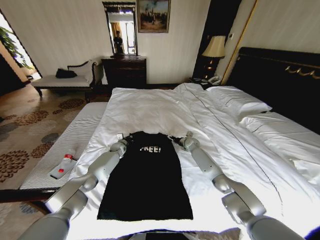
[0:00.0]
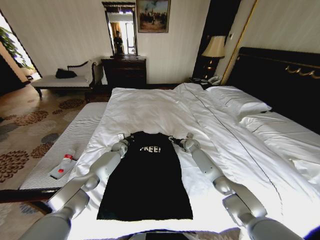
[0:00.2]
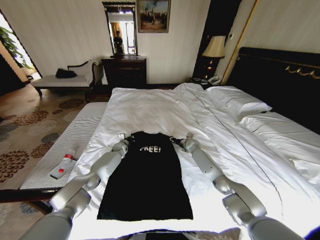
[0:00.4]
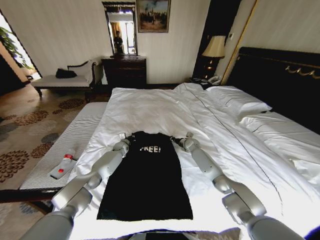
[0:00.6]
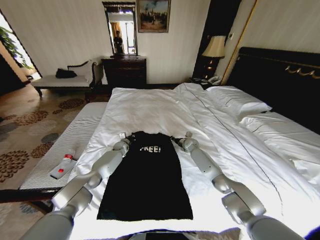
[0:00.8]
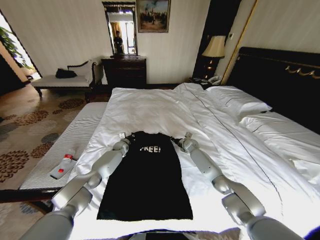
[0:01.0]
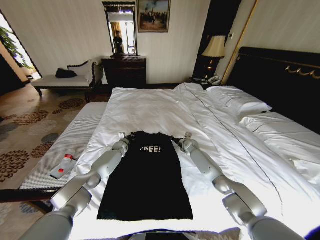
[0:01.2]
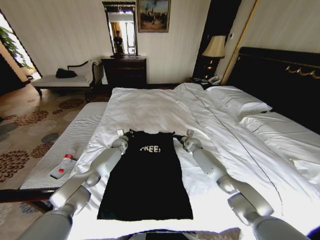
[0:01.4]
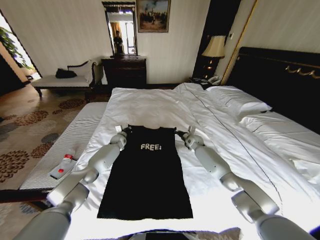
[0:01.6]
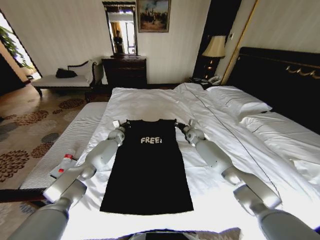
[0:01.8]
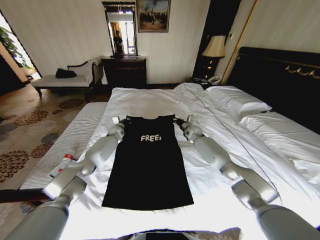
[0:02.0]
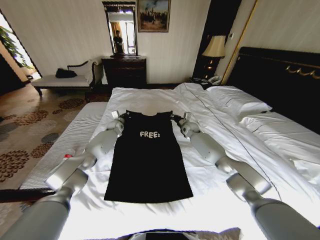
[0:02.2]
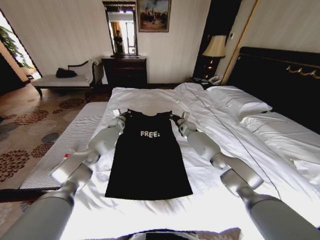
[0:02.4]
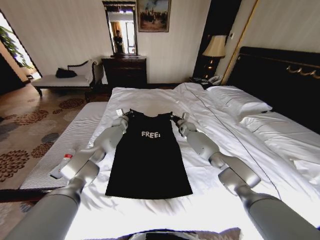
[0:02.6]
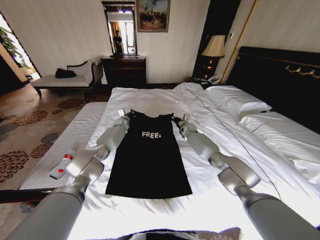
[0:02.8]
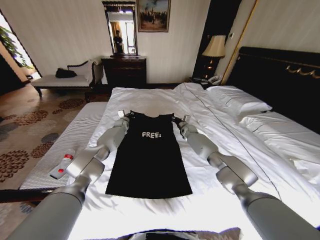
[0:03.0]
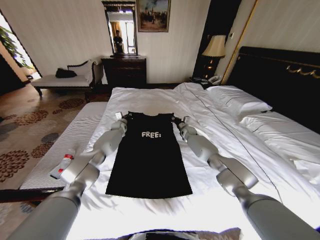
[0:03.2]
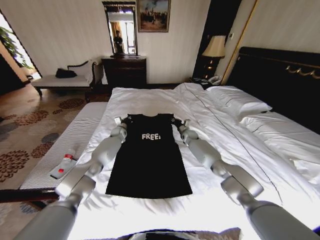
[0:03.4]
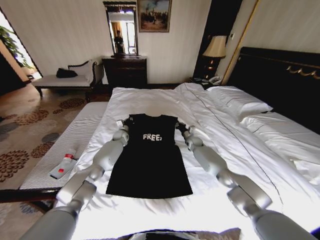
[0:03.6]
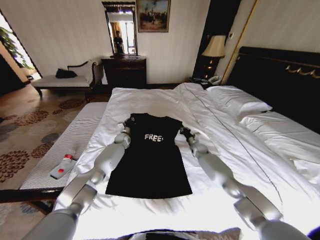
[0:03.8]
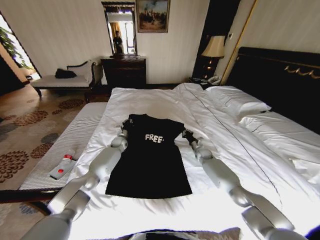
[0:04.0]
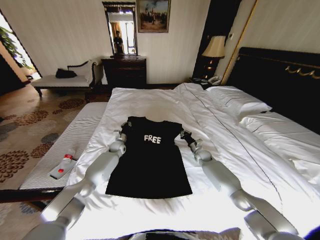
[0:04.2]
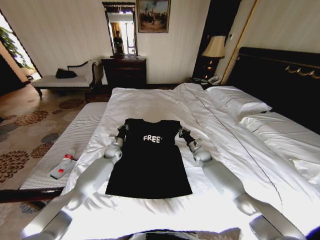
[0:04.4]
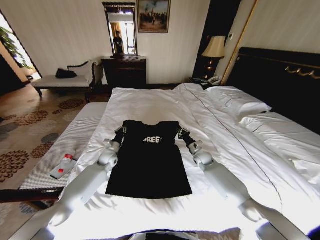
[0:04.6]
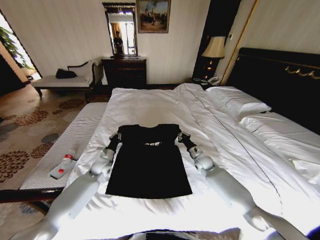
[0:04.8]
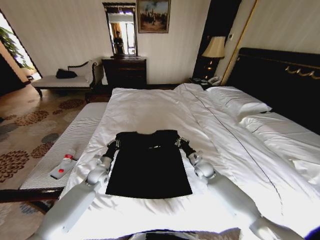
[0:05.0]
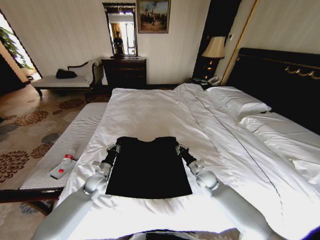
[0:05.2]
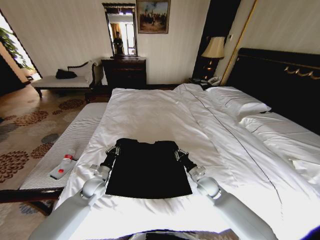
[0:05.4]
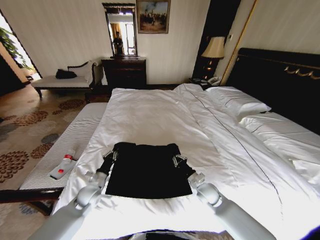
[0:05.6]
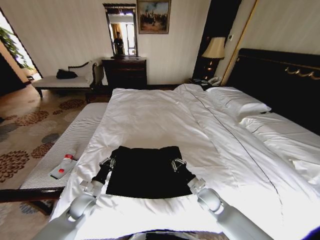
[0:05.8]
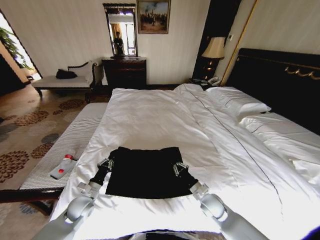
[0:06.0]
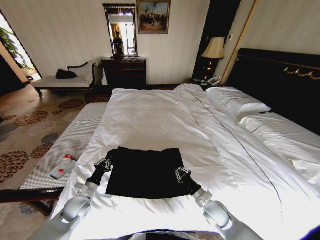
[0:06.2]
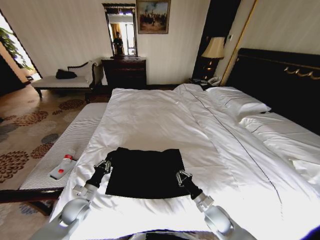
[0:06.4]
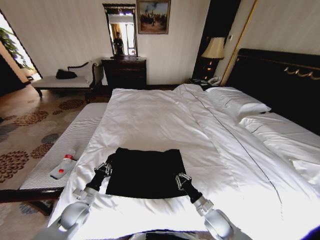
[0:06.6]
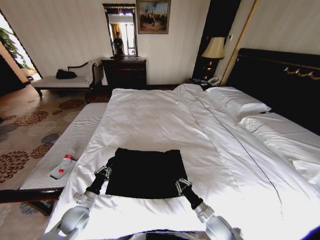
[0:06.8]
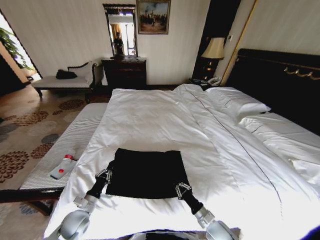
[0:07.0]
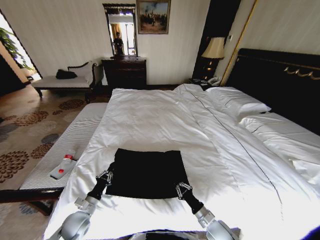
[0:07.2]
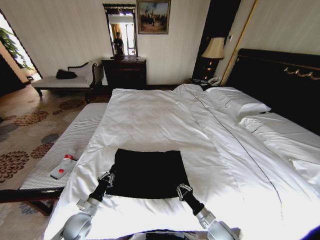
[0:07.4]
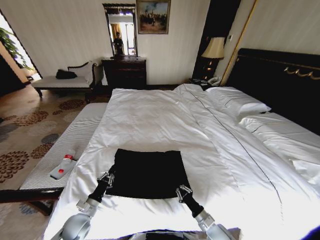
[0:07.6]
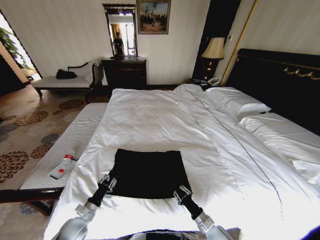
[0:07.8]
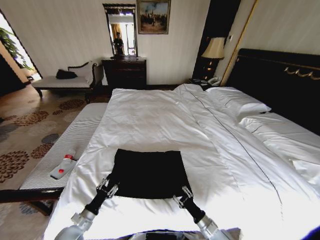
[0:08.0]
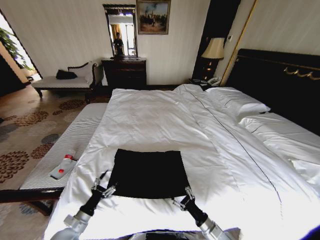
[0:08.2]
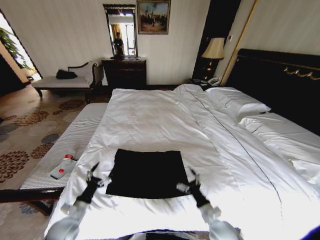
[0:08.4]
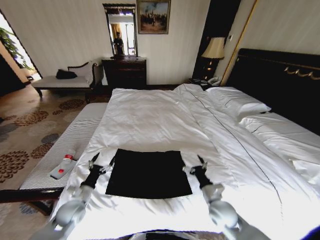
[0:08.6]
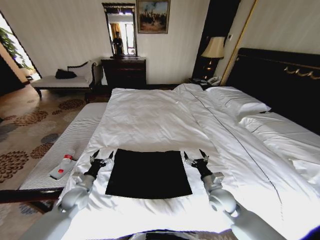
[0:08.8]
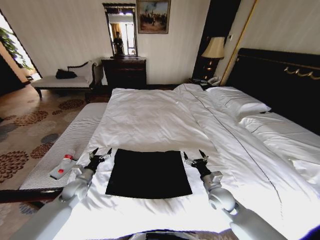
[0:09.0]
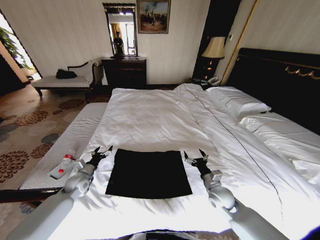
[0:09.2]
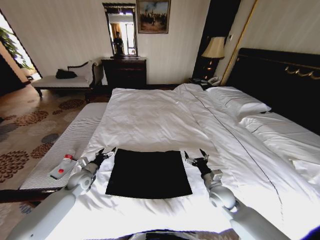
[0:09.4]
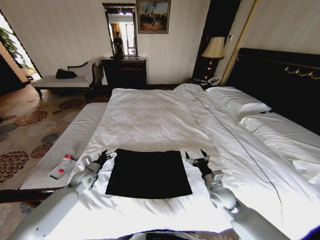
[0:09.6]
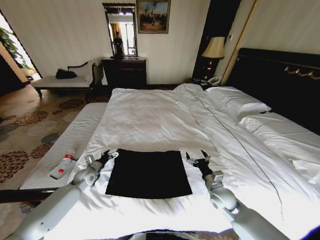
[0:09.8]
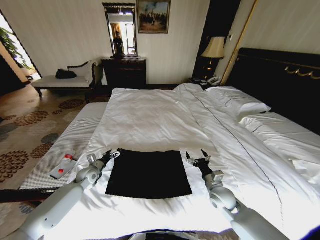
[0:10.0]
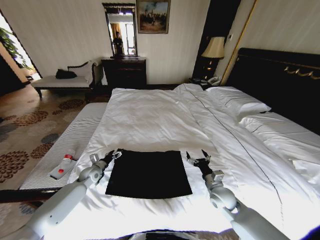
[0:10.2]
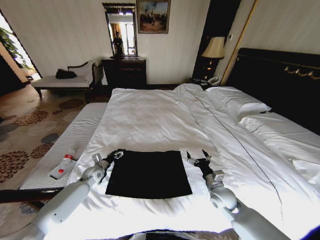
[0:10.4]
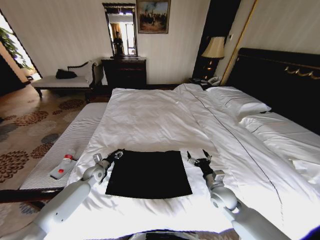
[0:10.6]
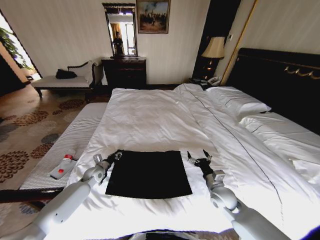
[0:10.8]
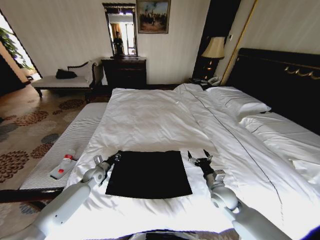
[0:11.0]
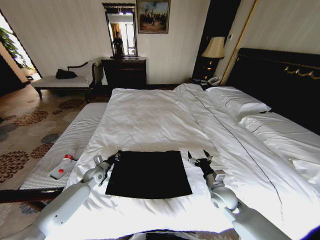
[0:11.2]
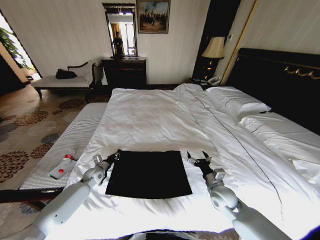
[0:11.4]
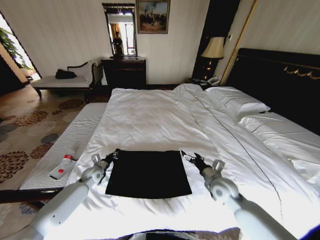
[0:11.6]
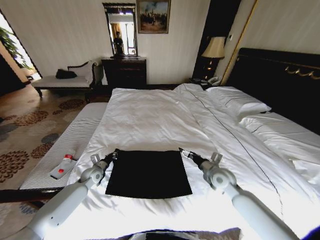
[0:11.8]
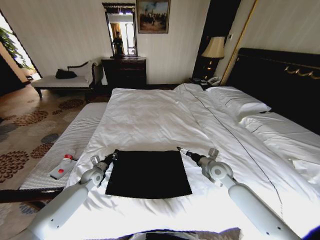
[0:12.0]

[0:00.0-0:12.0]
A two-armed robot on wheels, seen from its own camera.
Task of the whole recording: Fold the clothes on the bed.
0:00.0 to 0:01.6: The right gripper closes. Meanwhile the left gripper shifts by some 5 cm.
0:01.6 to 0:03.0: The left gripper shifts roughly 10 cm forward and upward, while the right gripper heads forward, covering about 10 cm.
0:03.0 to 0:04.4: The two grippers go some 20 cm backward and downward.
0:04.4 to 0:06.0: The two grippers go roughly 25 cm backward.
0:06.0 to 0:07.6: The left gripper travels backward by about 5 cm, while the right gripper travels backward and downward by roughly 10 cm.
0:07.6 to 0:09.0: The left gripper is displaced forward by some 10 cm, and opens up, while the right gripper moves forward and upward, roughly 15 cm, and opens up.
0:09.0 to 0:10.4: The left gripper travels forward by approximately 10 cm.
0:10.4 to 0:12.0: The left gripper closes its fingers; the right gripper goes some 10 cm forward and upward.

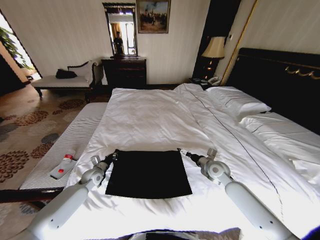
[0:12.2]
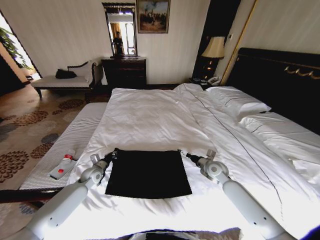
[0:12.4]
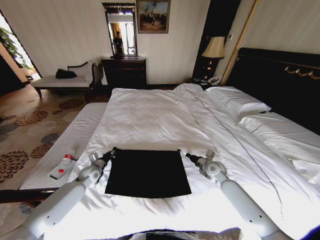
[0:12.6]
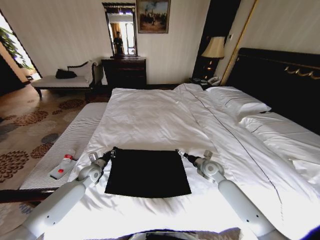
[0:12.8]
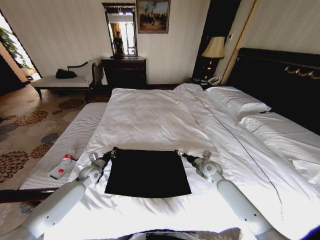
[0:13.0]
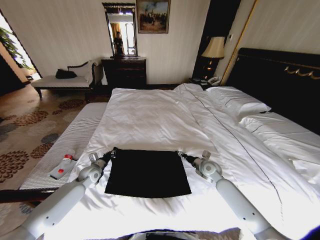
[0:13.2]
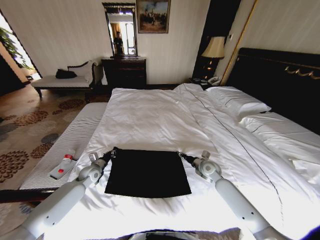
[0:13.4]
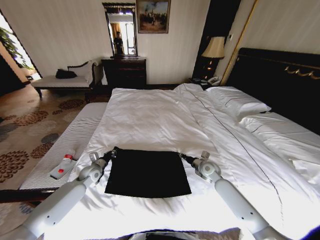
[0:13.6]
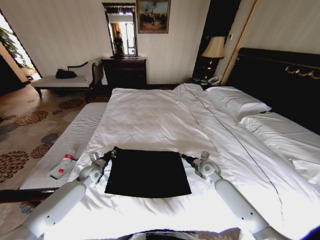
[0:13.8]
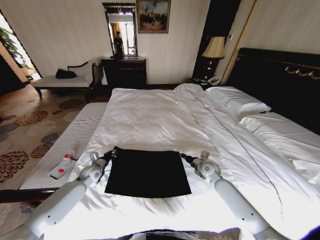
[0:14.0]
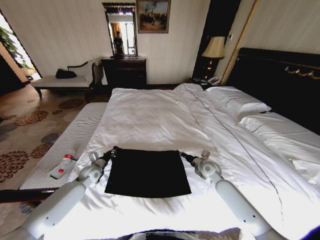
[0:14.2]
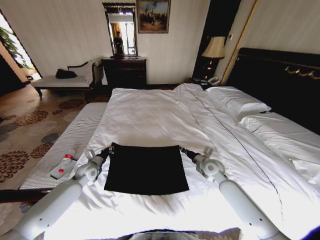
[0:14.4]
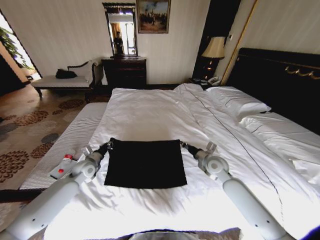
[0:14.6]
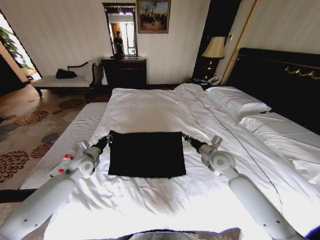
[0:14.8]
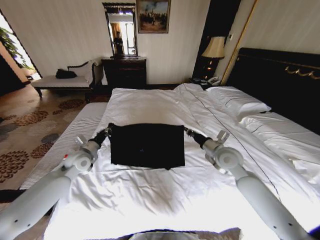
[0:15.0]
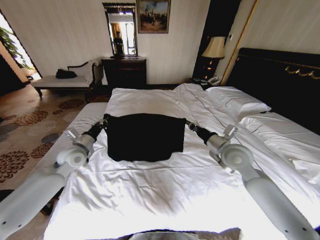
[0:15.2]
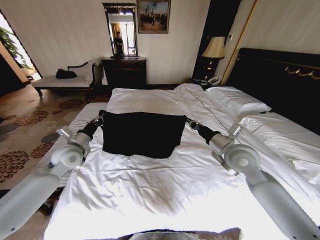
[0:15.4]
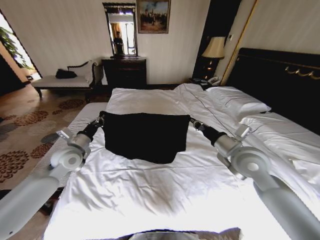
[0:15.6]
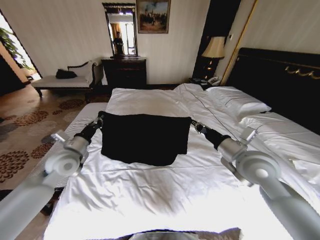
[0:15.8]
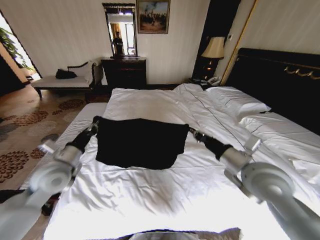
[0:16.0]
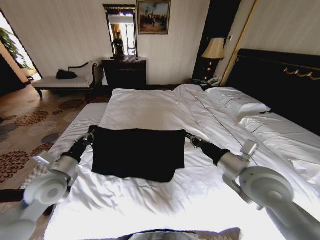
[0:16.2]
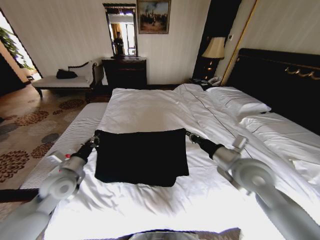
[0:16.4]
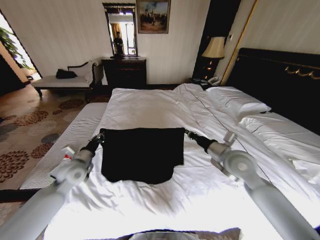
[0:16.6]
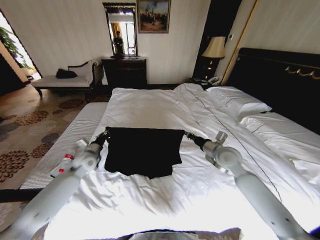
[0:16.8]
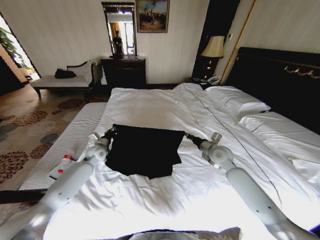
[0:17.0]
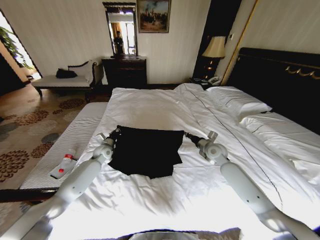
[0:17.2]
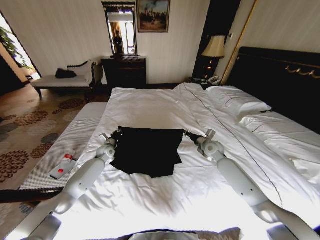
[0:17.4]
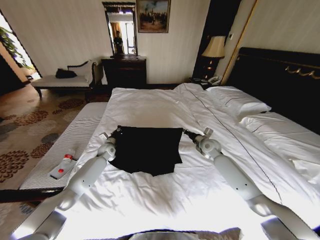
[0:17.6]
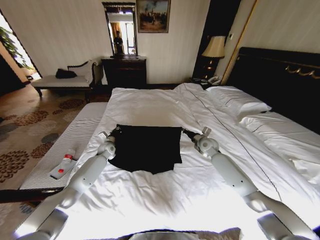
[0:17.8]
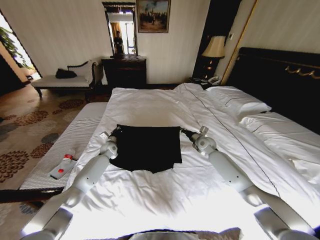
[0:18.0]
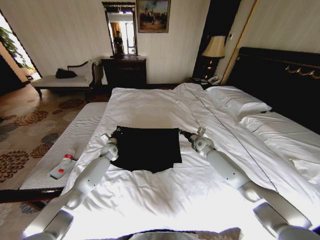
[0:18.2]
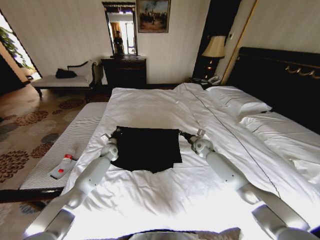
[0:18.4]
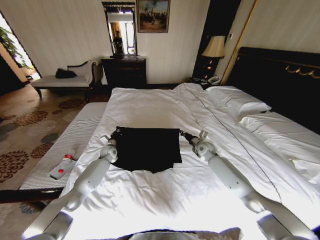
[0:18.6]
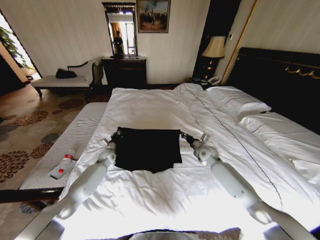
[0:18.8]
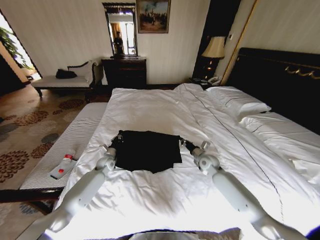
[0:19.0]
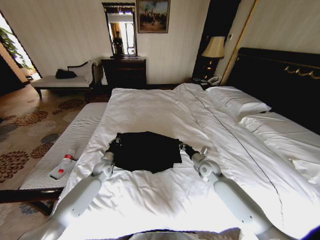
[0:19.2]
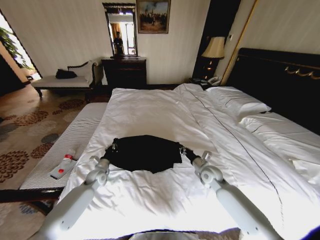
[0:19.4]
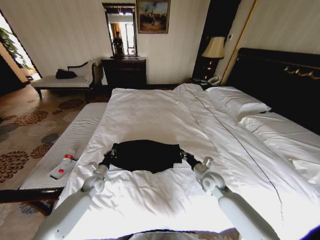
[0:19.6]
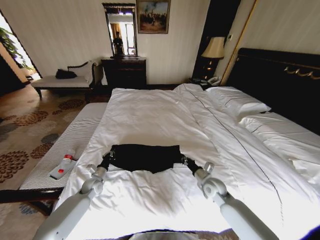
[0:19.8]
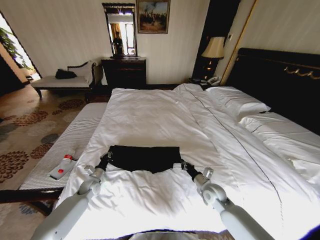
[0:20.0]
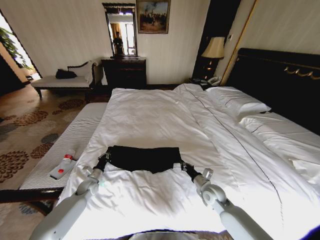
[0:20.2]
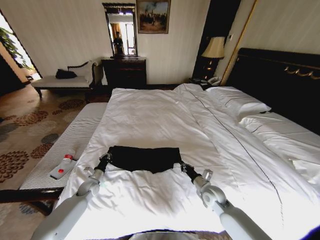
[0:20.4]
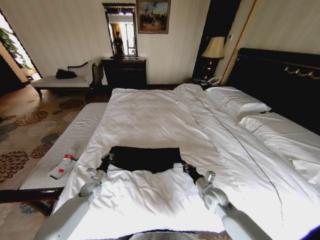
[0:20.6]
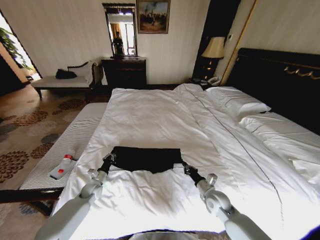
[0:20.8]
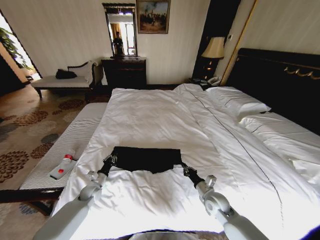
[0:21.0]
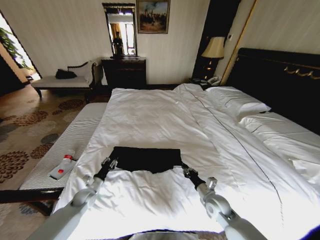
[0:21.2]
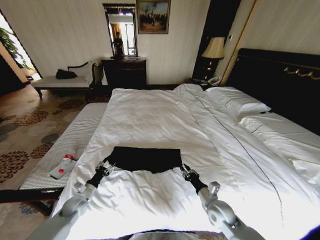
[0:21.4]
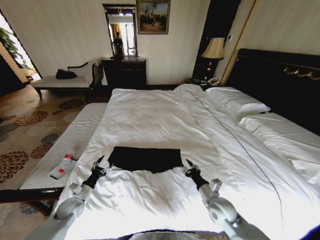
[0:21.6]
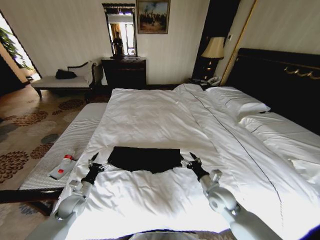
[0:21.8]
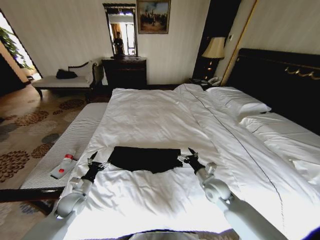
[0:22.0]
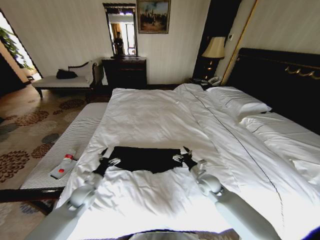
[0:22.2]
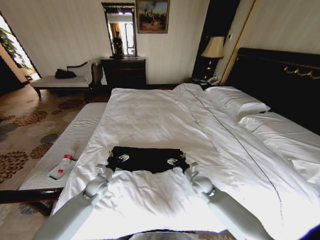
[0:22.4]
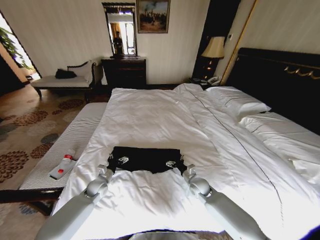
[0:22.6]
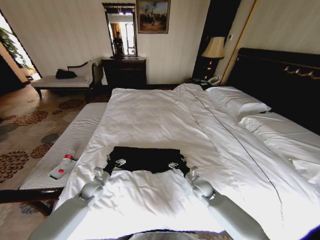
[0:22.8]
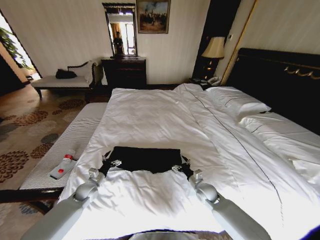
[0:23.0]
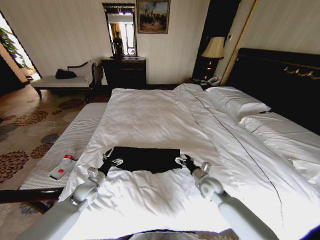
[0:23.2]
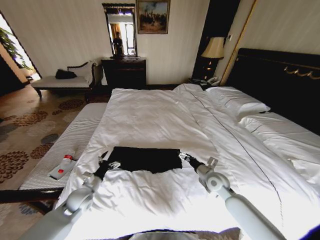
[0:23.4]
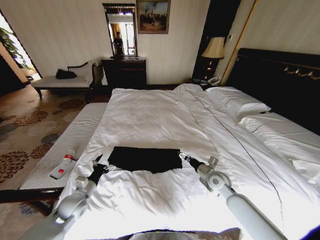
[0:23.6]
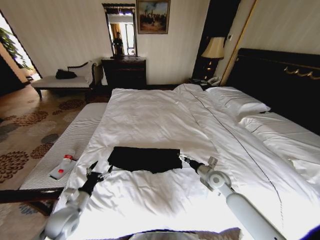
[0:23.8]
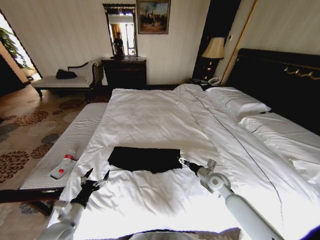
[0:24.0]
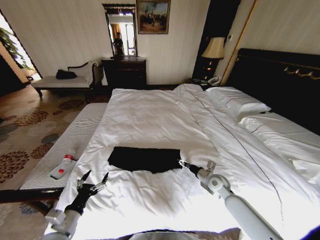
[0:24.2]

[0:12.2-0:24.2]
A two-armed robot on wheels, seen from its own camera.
Task of the whole recording: Fold the clothes on the bed.
0:12.2 to 0:13.8: The right gripper shifts by some 5 cm, and closes up.
0:13.8 to 0:15.2: Both grippers travel together upward, some 20 cm.
0:15.2 to 0:16.6: The right gripper reaches approximately 10 cm backward, then returns.
0:16.6 to 0:18.2: The two grippers go some 25 cm forward and downward.
0:18.2 to 0:19.8: The right gripper shifts about 20 cm backward. Meanwhile the left gripper heads backward and downward, covering roughly 20 cm.
0:19.8 to 0:21.2: The two grippers go some 5 cm backward.
0:21.2 to 0:22.6: The left gripper heads to the right, covering some 5 cm, and opens up. The right gripper shifts roughly 10 cm forward, and opens.
0:22.6 to 0:24.2: The right gripper shifts some 10 cm to the right, while the left gripper is displaced backward and upward by about 25 cm.
